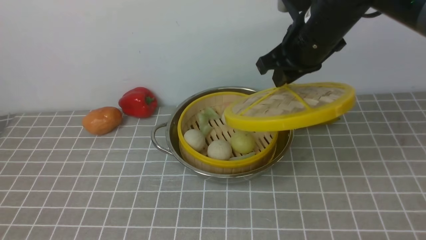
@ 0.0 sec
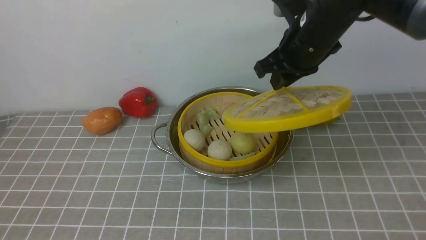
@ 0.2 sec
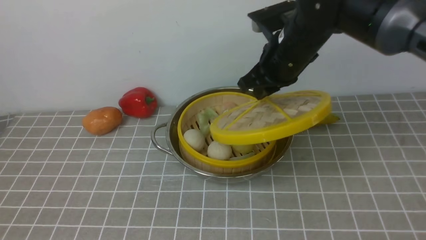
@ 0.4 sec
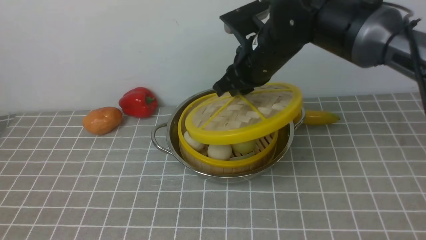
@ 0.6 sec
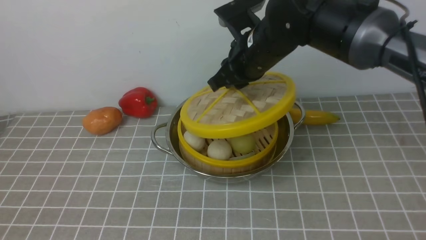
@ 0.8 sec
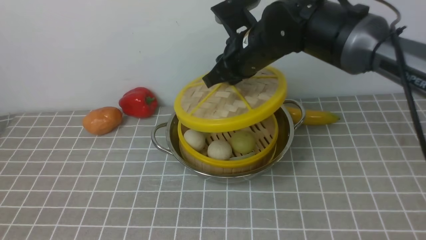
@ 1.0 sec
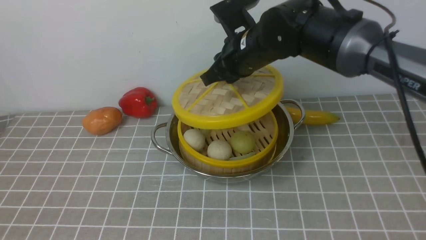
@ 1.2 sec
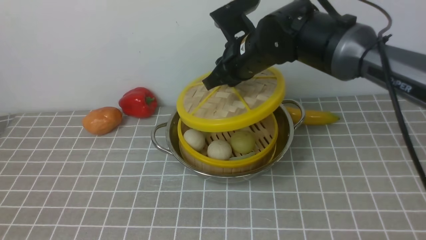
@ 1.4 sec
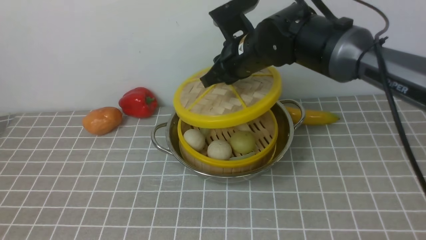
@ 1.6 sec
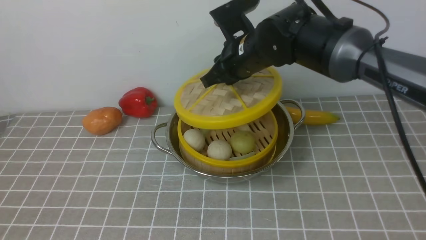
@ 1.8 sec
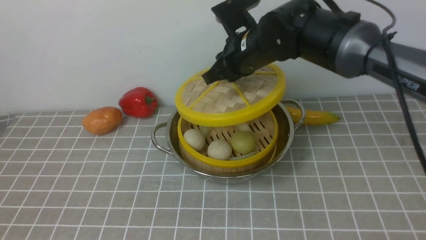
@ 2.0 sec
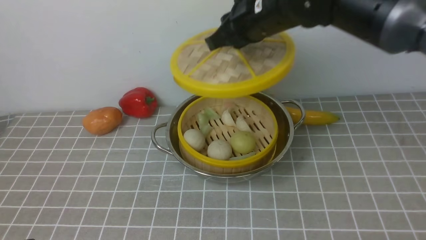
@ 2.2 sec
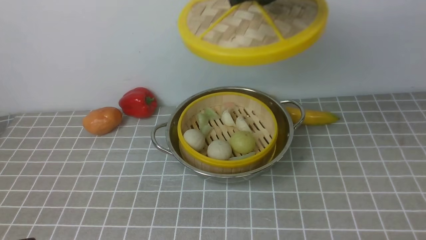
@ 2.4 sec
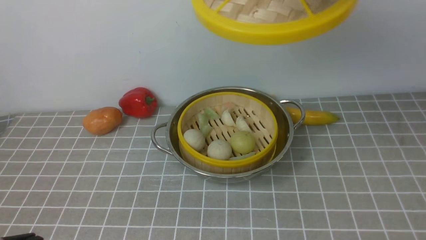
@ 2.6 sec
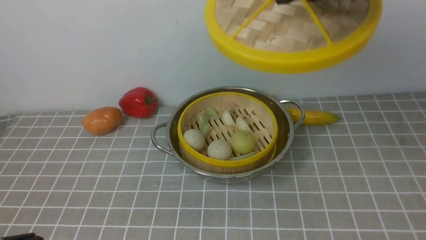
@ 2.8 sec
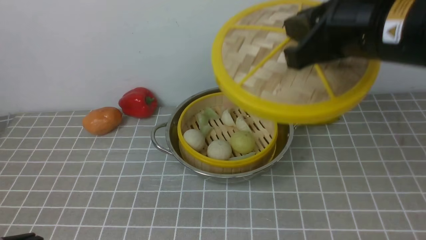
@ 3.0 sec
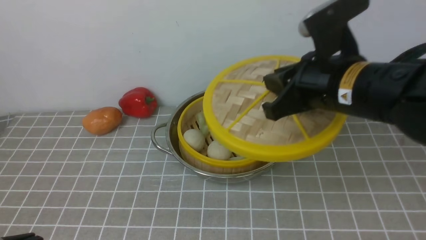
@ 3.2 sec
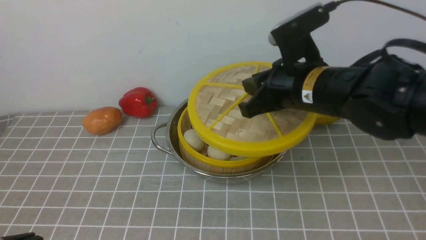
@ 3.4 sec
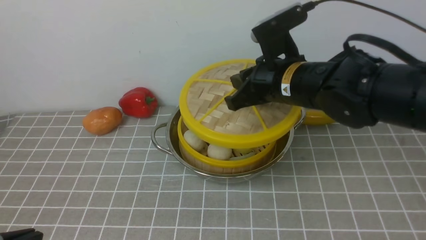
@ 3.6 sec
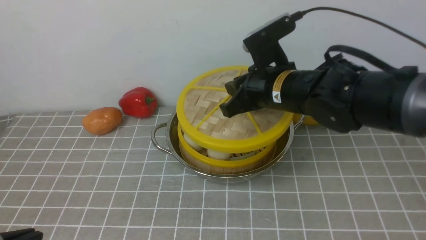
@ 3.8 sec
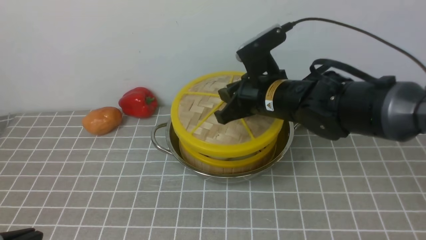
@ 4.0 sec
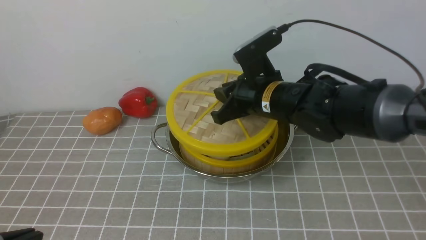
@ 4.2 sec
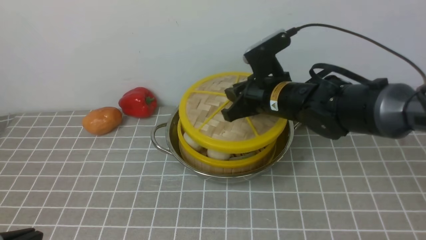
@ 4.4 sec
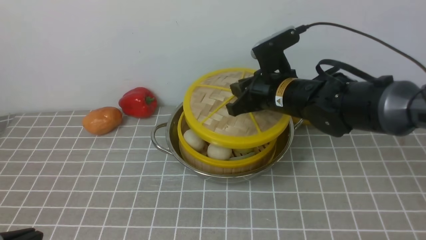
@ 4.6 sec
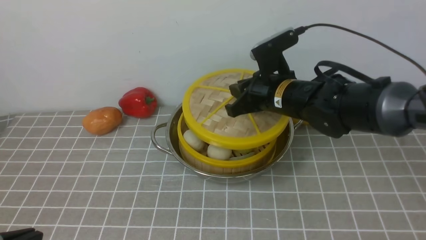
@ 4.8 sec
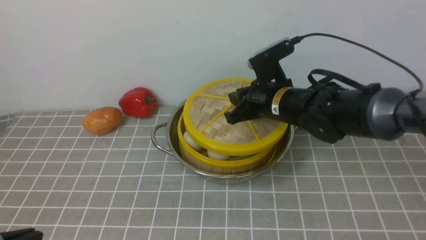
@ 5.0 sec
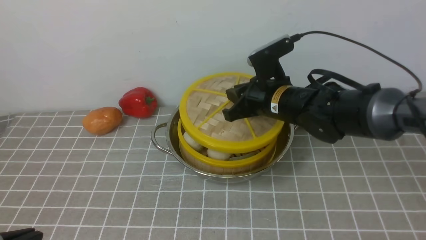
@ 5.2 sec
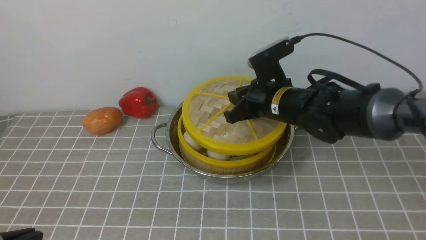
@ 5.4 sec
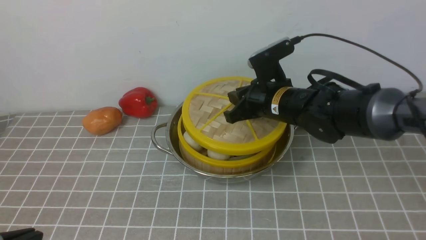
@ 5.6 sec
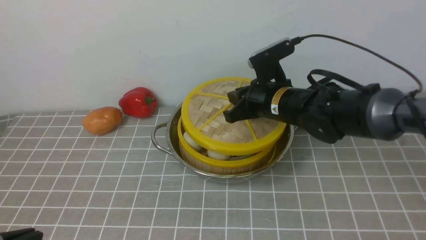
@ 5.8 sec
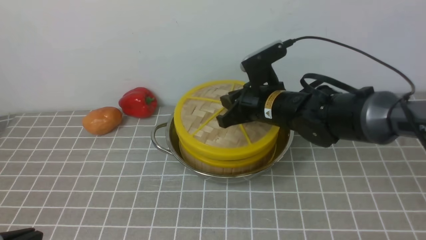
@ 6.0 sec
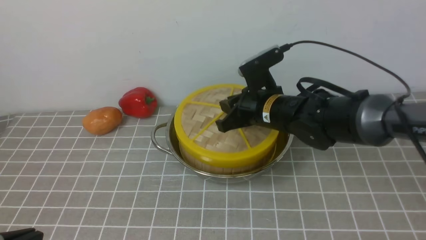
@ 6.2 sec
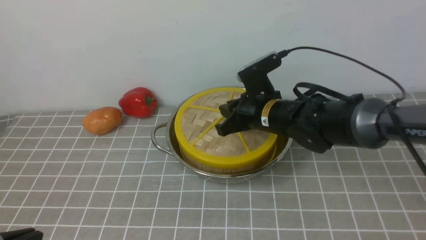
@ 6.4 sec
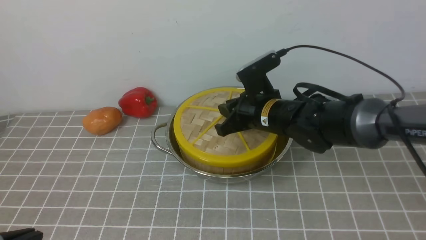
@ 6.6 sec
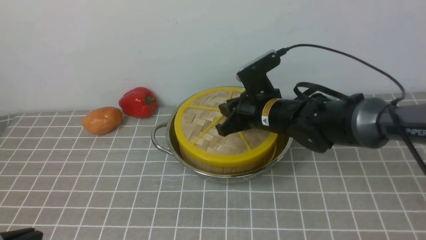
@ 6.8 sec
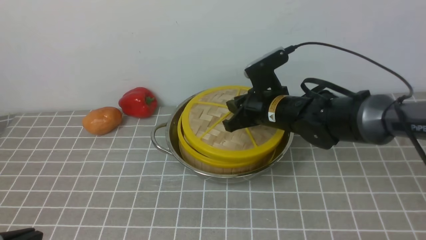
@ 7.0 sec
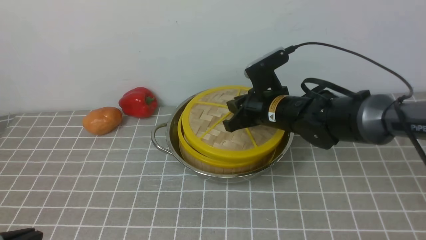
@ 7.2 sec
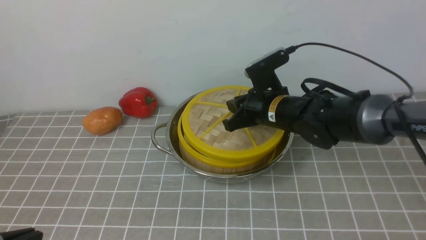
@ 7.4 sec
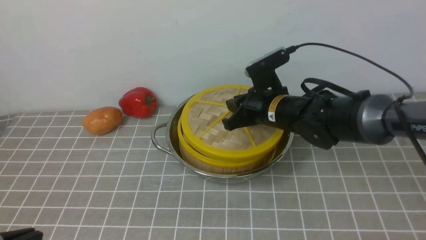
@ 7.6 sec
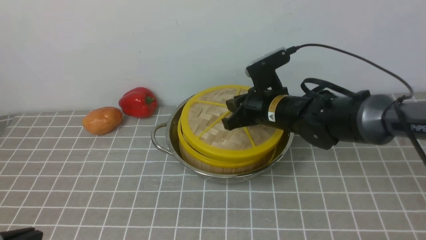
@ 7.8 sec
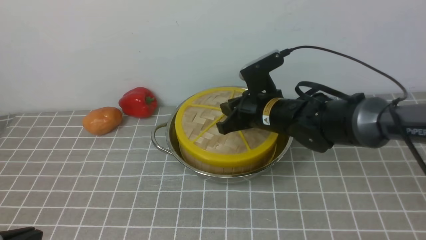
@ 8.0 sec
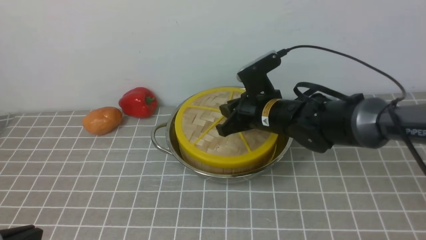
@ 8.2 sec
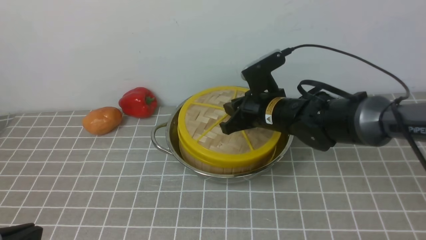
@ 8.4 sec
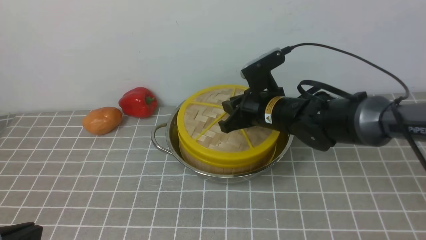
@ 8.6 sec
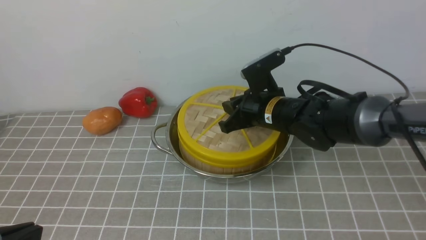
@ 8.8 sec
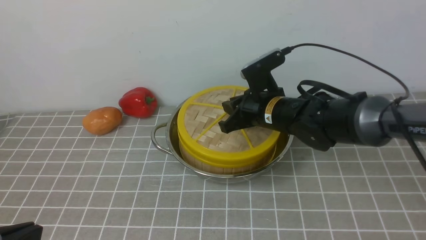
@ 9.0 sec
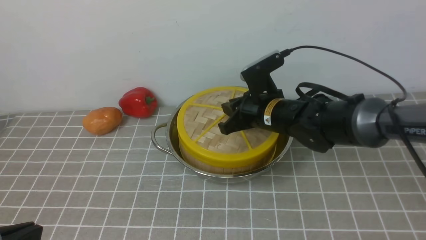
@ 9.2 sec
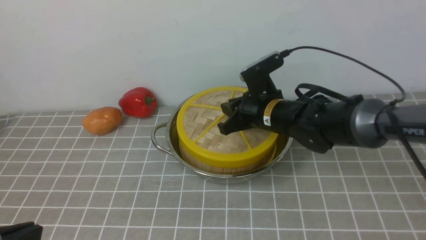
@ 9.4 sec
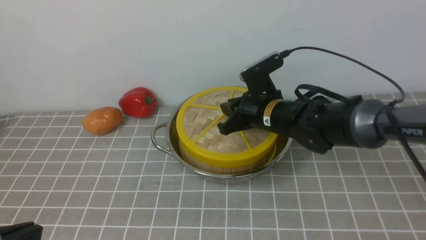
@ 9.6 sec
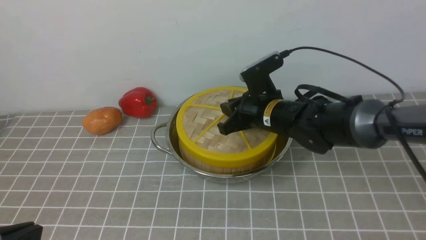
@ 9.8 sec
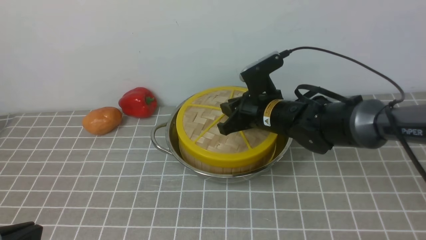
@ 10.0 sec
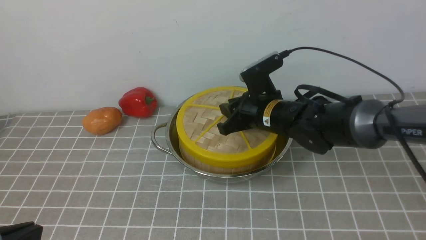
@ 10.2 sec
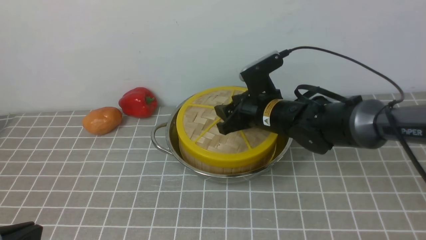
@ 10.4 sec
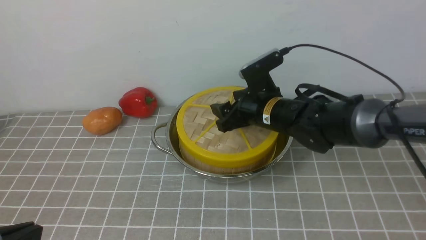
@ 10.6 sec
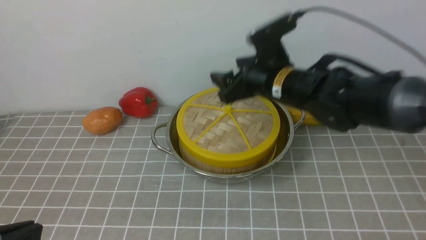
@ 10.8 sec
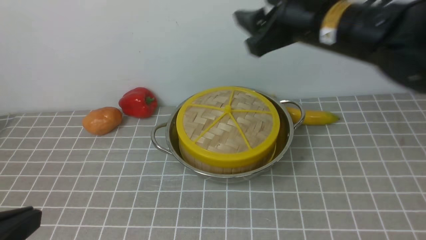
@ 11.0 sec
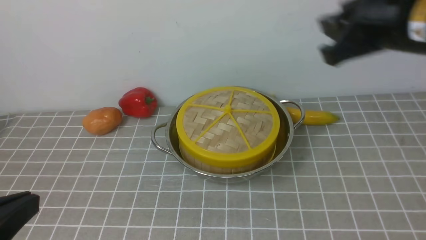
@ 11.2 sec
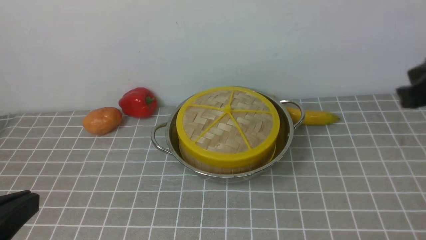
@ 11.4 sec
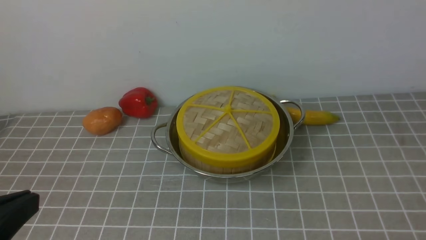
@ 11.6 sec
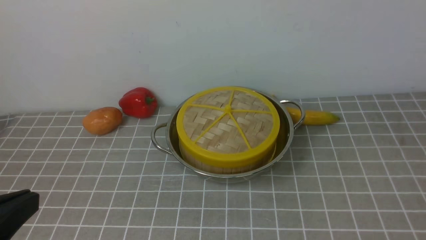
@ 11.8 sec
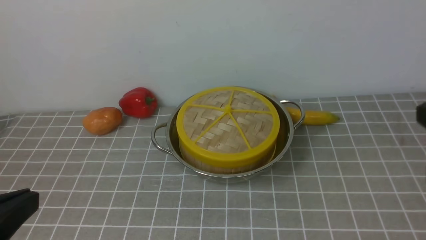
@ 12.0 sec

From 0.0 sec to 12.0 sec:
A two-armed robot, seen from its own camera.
Task of the whole recording: place the steamer in the pot on the grey tablecloth, and put the lid on the steamer.
Step, from 0.0 sec to 10.6 sec: use the right arm to place the steamer lid on the steamer.
From 0.0 sec to 1.6 sec: The right gripper moves to the left and downward, approximately 10 cm.
From 1.6 sec to 3.0 sec: The right gripper is displaced backward, to the right and upward by some 20 cm.
From 3.0 sec to 4.4 sec: The right gripper travels downward and forward by some 20 cm.
From 4.4 sec to 7.6 sec: The grippers move only a little.
From 7.6 sec to 9.0 sec: The two grippers keep their place.
From 9.0 sec to 10.4 sec: The right gripper opens.
From 10.4 sec to 12.0 sec: The right gripper shifts some 35 cm backward, to the right and upward, and closes up.

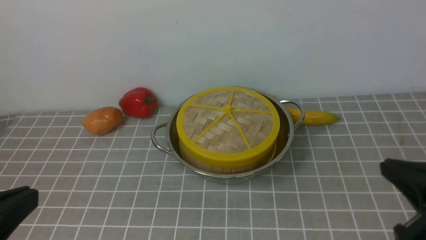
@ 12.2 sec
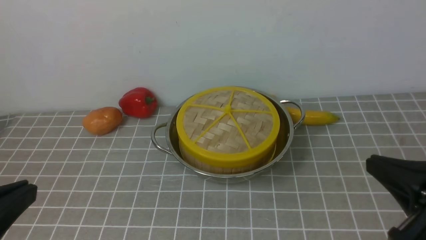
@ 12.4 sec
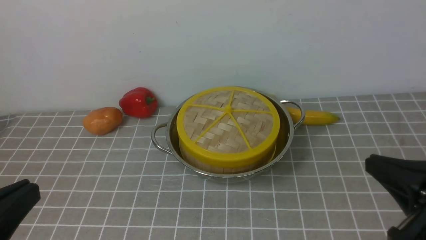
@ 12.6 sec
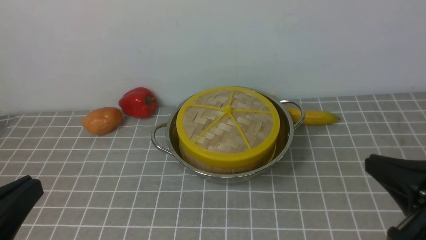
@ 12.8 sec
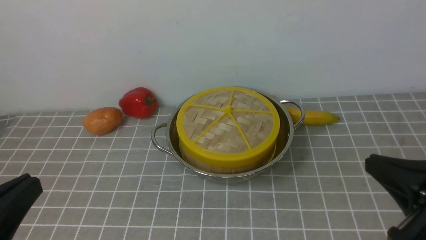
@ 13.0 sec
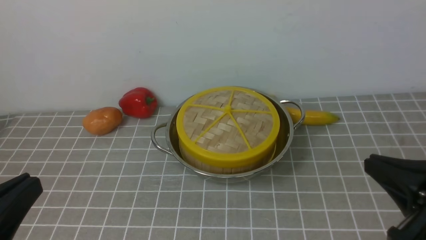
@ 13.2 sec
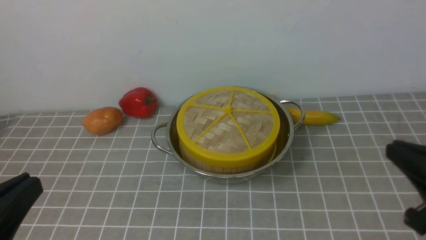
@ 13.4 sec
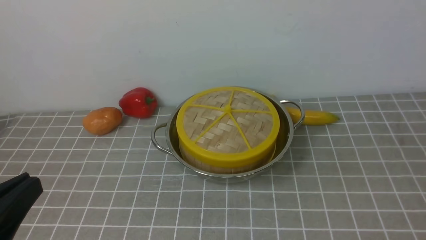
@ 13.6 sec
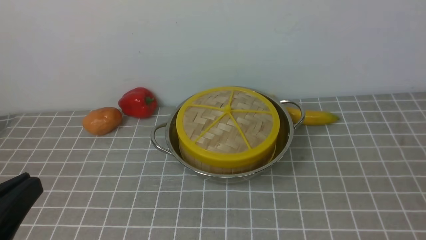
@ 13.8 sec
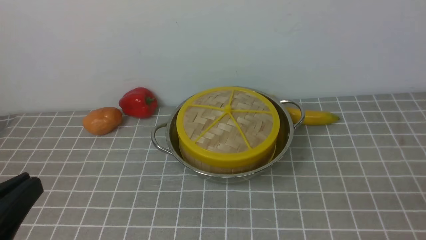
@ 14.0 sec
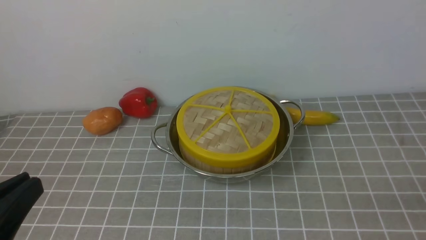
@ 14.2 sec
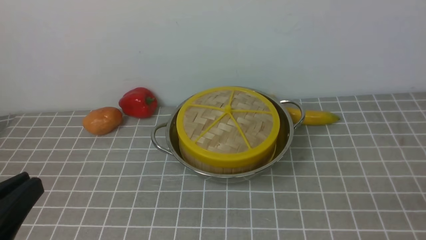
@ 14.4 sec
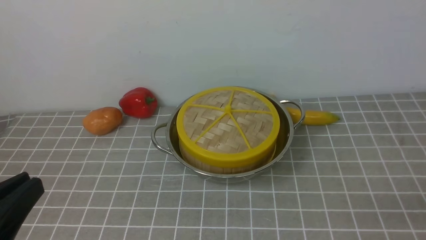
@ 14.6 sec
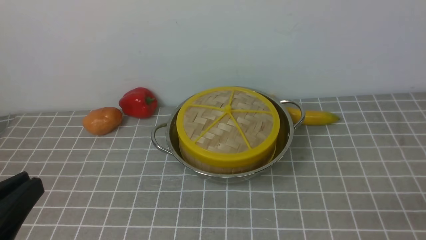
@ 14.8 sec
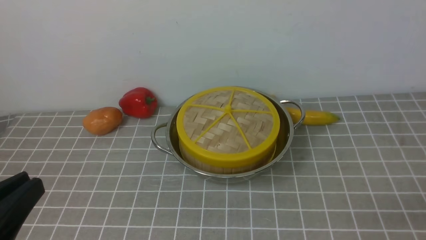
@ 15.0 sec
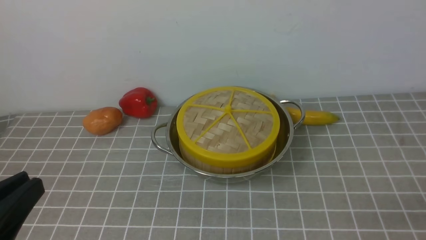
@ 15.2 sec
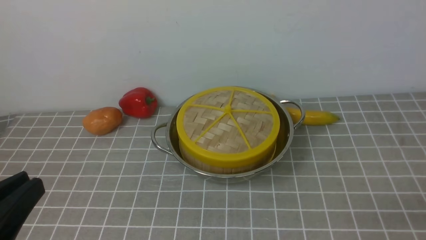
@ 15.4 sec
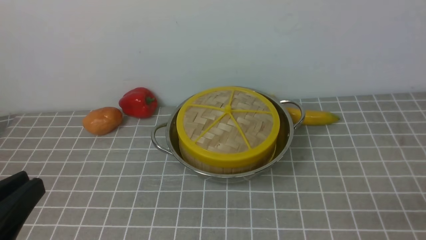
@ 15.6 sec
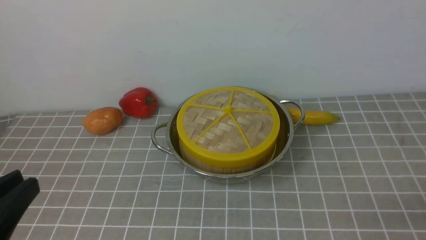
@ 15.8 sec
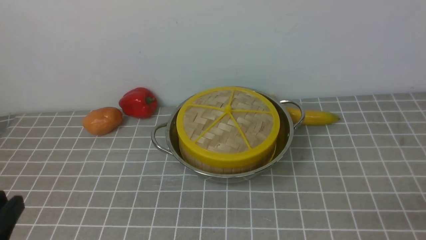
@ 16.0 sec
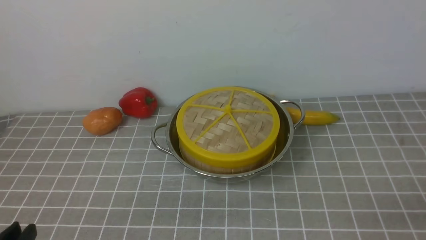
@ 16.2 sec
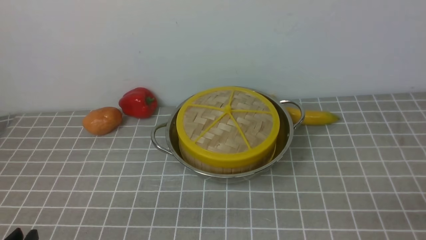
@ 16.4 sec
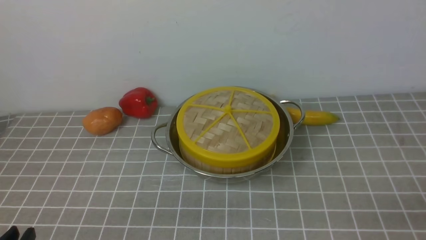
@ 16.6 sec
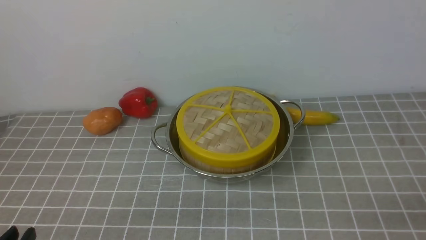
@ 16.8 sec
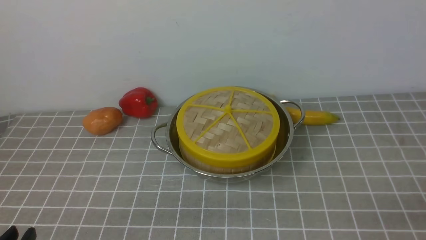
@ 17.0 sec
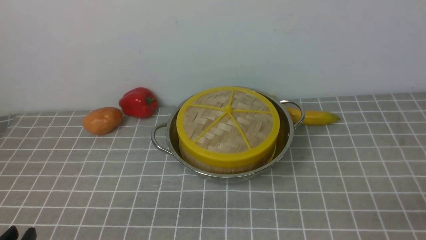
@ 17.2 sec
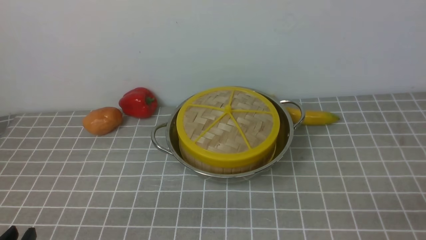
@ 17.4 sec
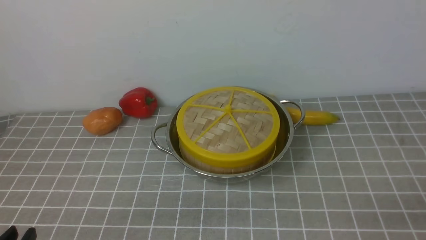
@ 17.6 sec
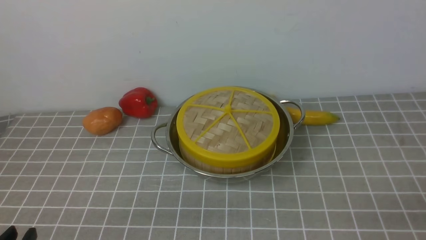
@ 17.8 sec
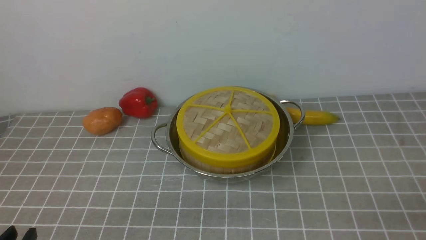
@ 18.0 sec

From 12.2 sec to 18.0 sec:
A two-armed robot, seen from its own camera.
Task of the whole recording: place the steamer in the pot on the grey tablecloth, and put the lid on the steamer.
From 12.2 sec to 13.6 sec: The right gripper changes place by roughly 5 cm.
From 15.0 sec to 16.6 sec: The left gripper shifts approximately 10 cm downward.
From 16.6 sec to 18.0 sec: Both grippers stay put.
